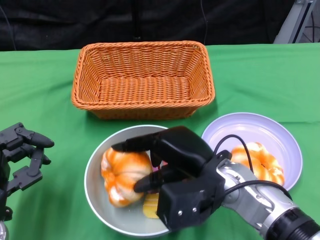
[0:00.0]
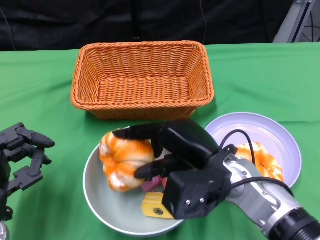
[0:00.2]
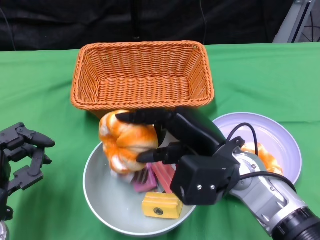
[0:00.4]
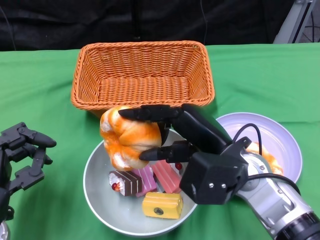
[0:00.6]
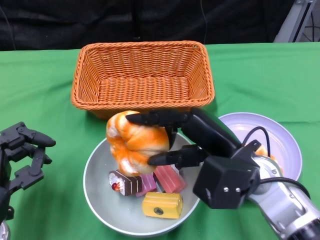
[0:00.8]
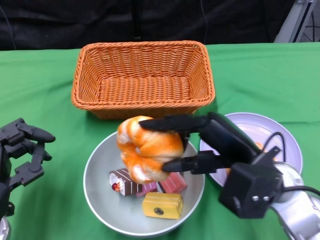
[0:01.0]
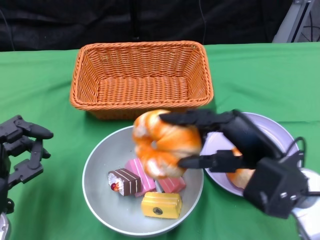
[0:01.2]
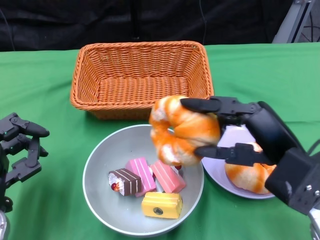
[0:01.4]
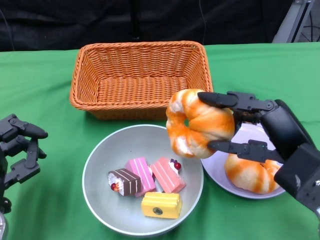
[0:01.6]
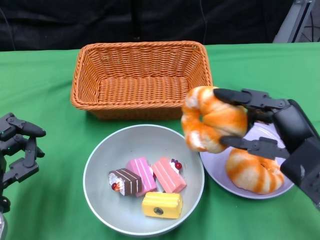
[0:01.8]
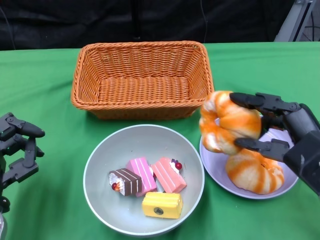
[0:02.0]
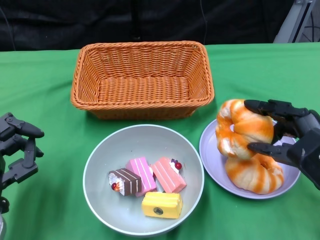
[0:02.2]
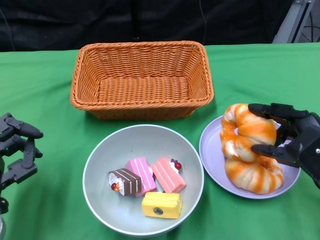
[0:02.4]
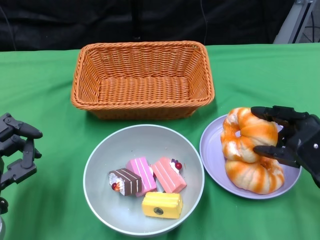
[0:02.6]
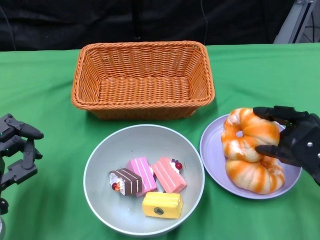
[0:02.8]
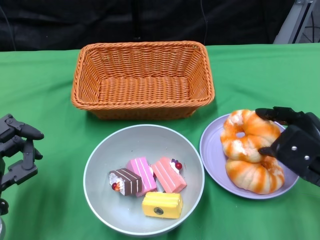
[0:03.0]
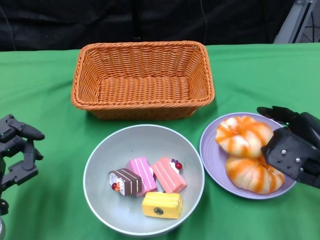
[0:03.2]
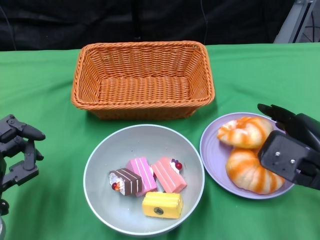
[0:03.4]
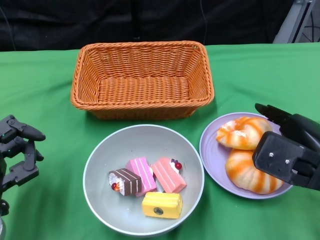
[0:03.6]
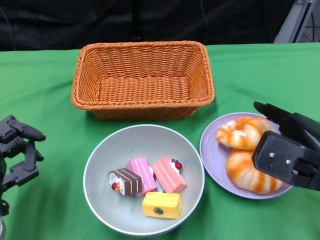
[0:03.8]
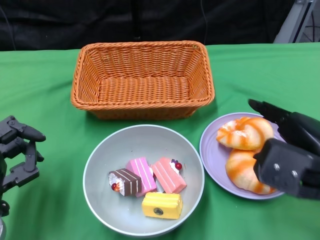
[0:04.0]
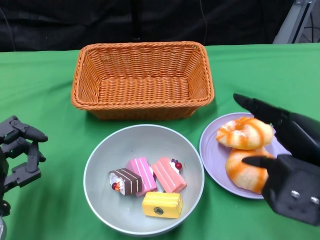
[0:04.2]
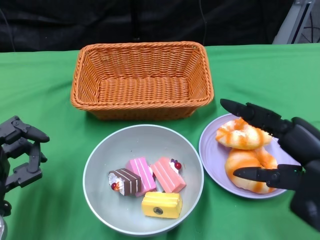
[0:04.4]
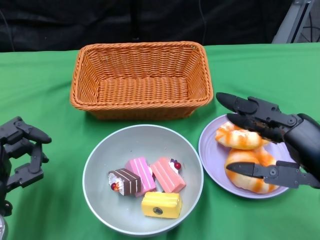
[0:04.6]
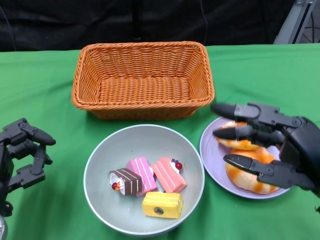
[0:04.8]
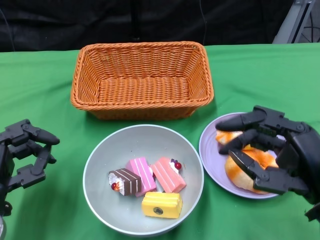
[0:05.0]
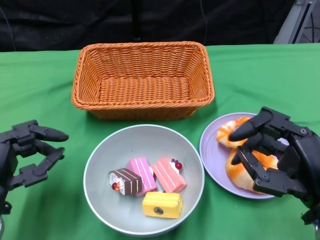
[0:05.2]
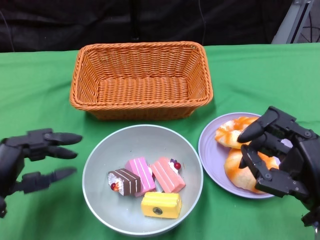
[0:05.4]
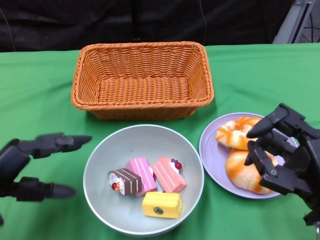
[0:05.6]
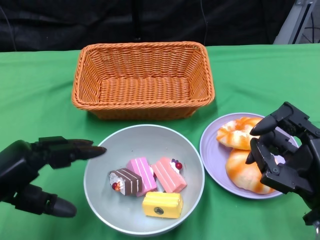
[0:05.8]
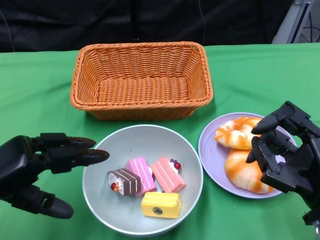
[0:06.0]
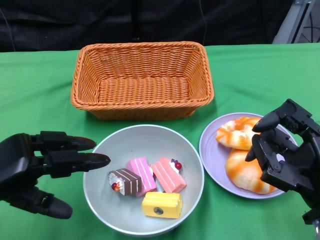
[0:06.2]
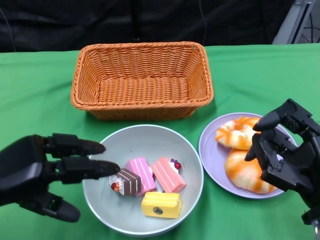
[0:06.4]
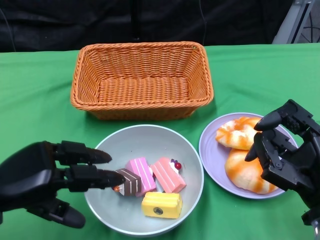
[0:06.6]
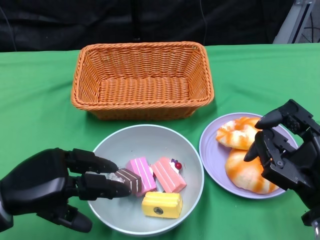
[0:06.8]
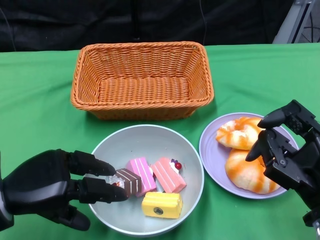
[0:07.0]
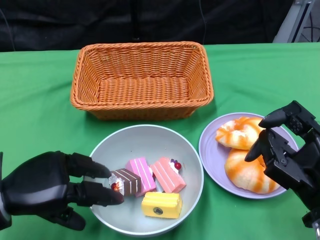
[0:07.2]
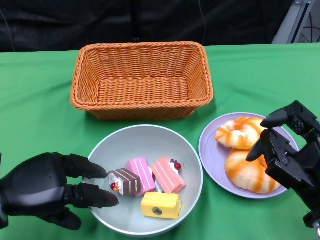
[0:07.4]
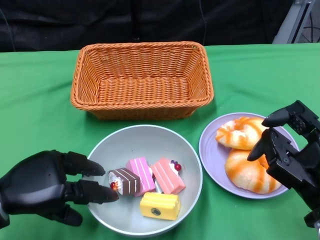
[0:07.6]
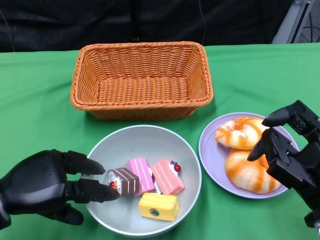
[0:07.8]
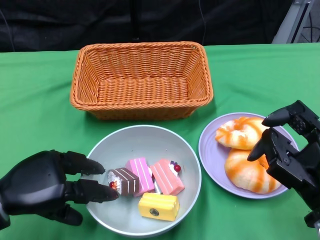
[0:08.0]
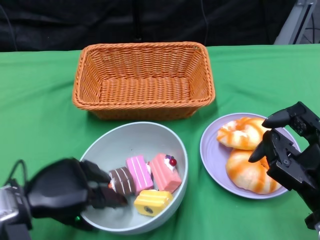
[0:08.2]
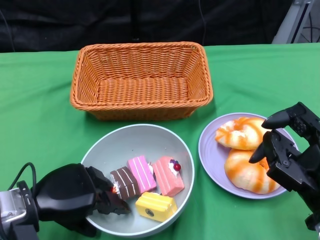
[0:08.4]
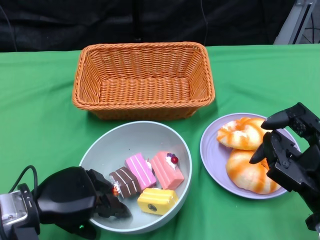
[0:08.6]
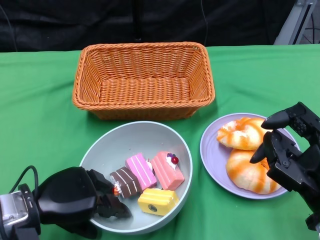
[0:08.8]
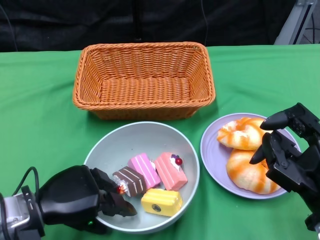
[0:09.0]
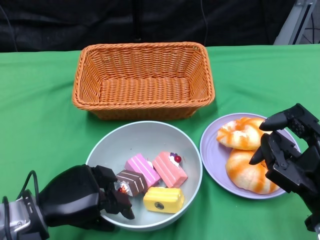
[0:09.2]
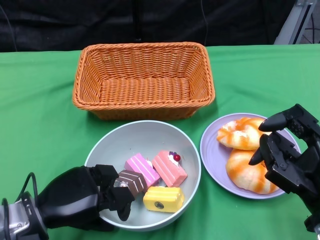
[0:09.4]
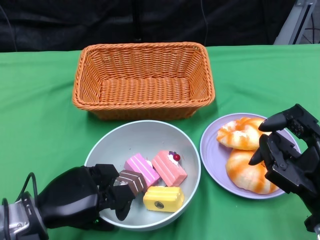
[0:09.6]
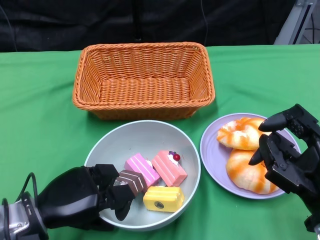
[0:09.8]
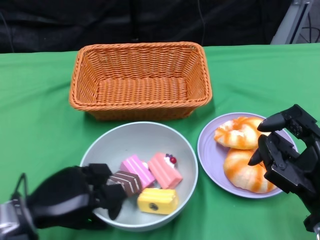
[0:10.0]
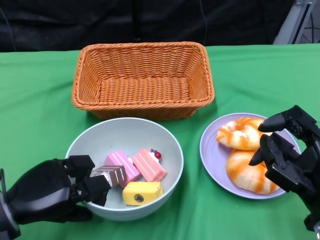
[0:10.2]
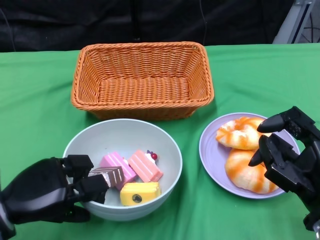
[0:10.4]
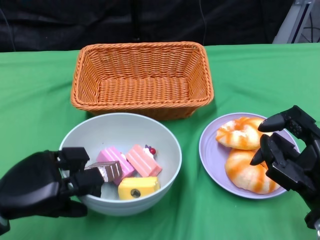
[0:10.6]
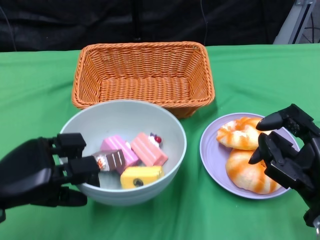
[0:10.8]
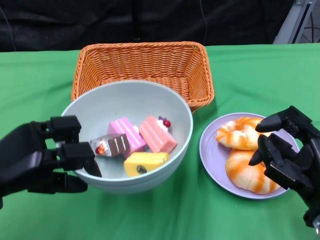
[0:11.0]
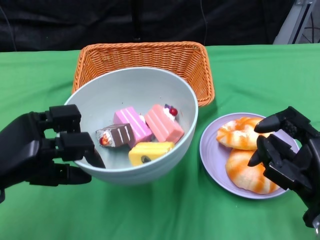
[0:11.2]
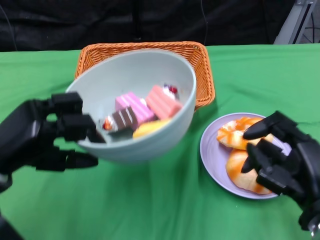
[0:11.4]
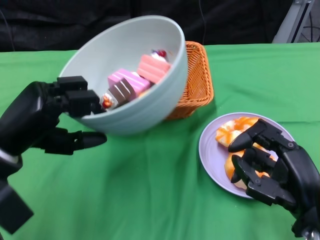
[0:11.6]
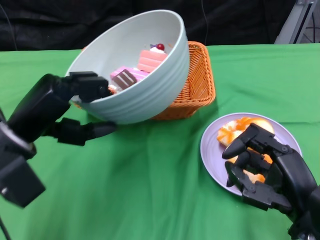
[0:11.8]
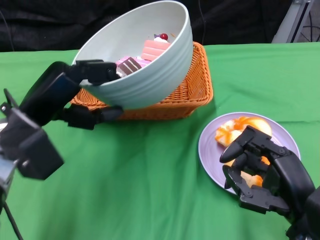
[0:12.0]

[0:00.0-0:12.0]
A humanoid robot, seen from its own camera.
Step, 0:00.0 to 0:04.0: Pick up the bread with the right gripper and place it on the plate.
Step, 0:04.2 to 0:09.6: Grasp the bowl with the left gripper.
0:00.0 to 0:01.6: The right hand is displaced to the right by some 10 cm.
0:01.6 to 0:03.0: The right hand shifts by approximately 10 cm.
0:03.0 to 0:04.4: The right hand travels upward and backward by roughly 15 cm.
0:04.4 to 0:06.0: The right hand goes approximately 10 cm downward. The left hand heads upward, covering about 5 cm.
0:10.4 to 0:12.0: The left hand shifts some 10 cm upward and forward.

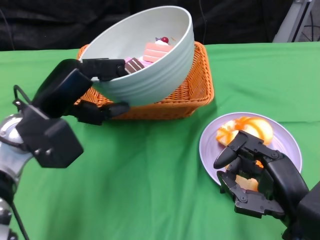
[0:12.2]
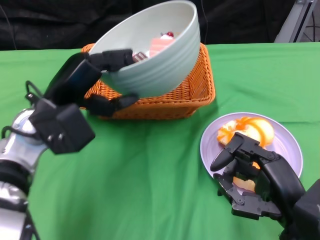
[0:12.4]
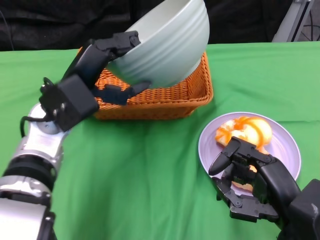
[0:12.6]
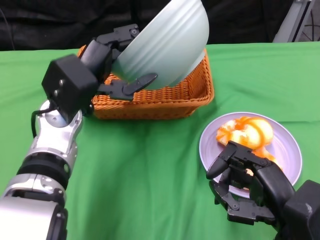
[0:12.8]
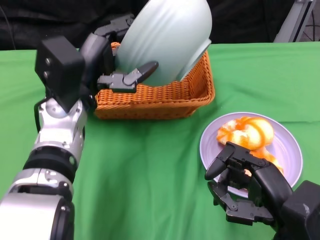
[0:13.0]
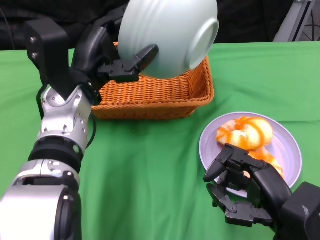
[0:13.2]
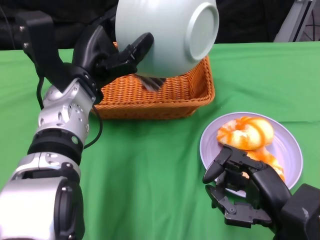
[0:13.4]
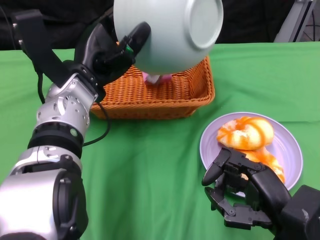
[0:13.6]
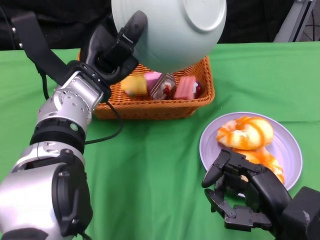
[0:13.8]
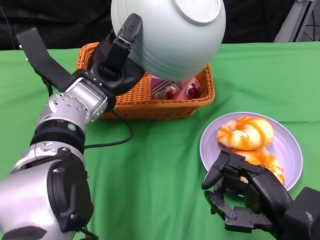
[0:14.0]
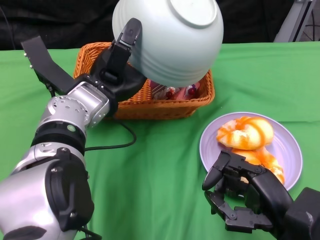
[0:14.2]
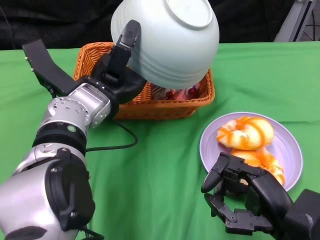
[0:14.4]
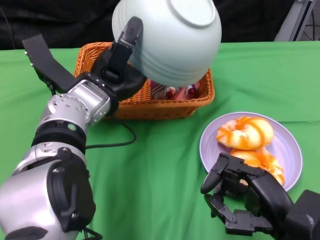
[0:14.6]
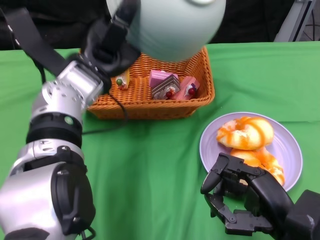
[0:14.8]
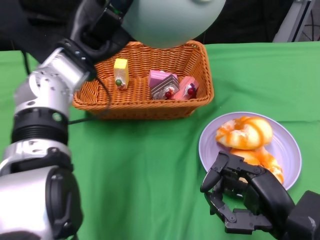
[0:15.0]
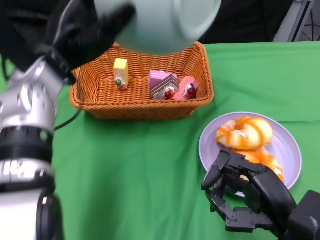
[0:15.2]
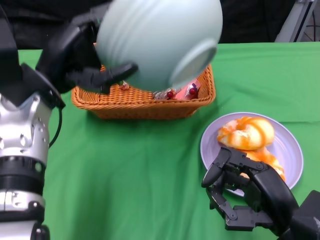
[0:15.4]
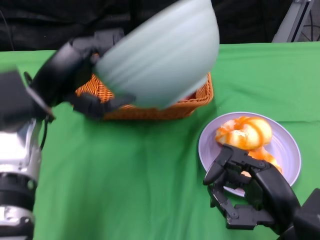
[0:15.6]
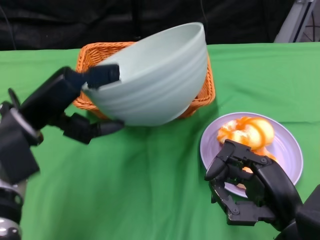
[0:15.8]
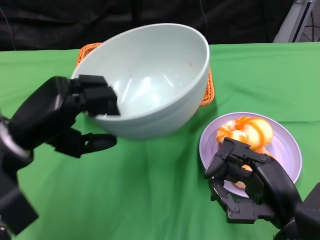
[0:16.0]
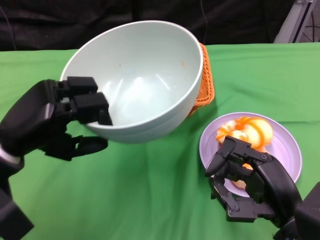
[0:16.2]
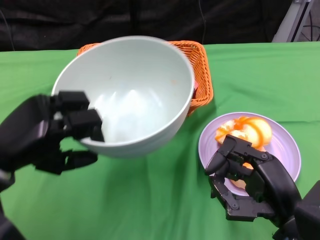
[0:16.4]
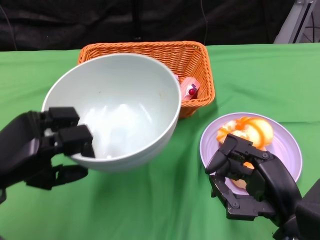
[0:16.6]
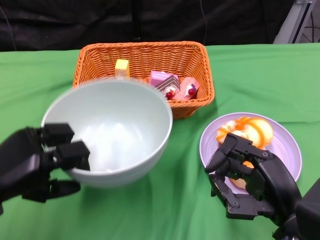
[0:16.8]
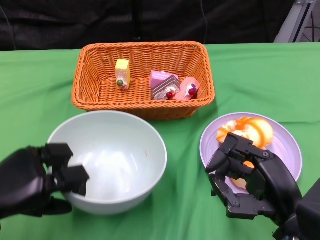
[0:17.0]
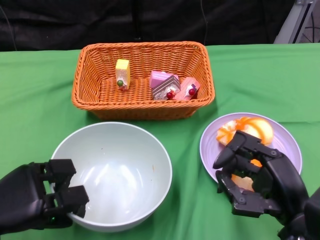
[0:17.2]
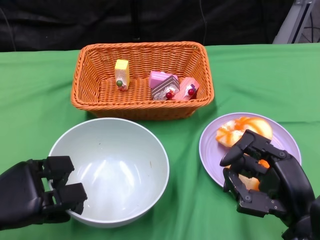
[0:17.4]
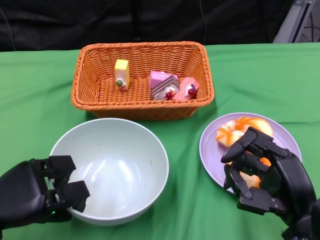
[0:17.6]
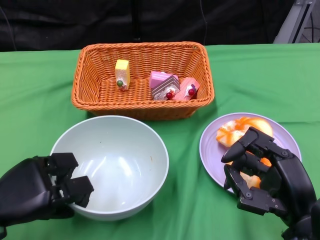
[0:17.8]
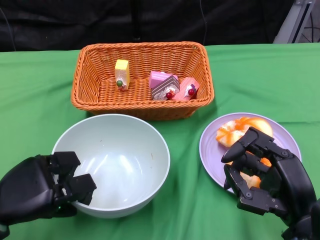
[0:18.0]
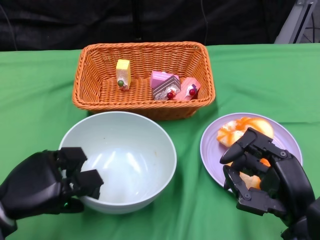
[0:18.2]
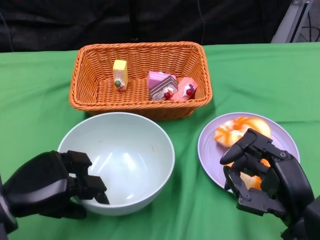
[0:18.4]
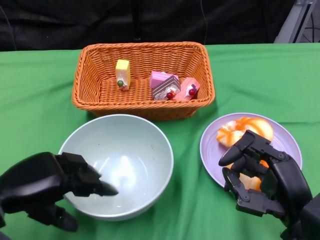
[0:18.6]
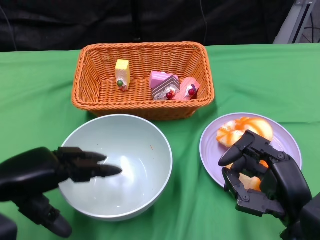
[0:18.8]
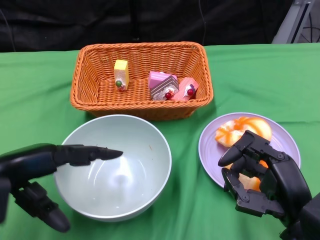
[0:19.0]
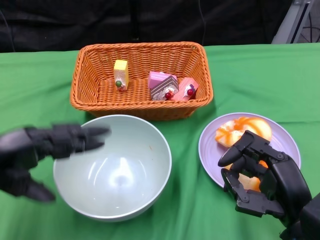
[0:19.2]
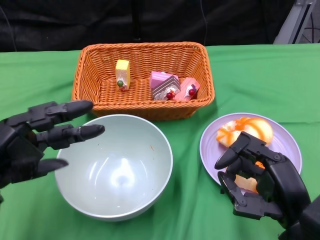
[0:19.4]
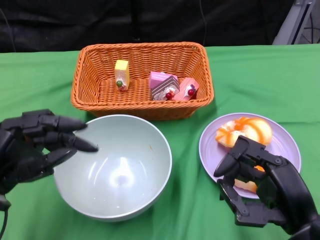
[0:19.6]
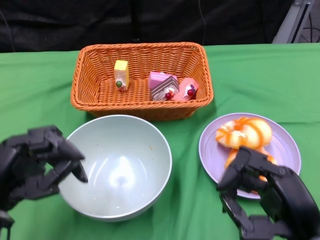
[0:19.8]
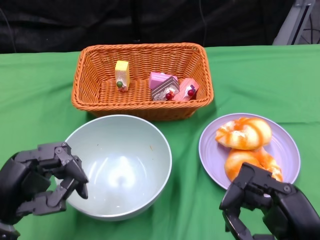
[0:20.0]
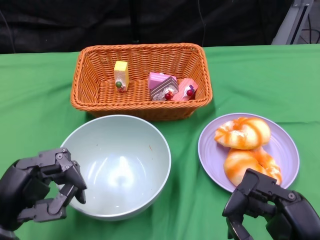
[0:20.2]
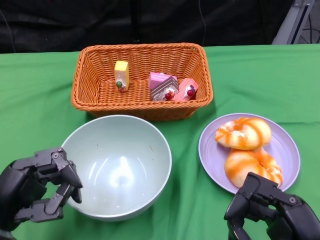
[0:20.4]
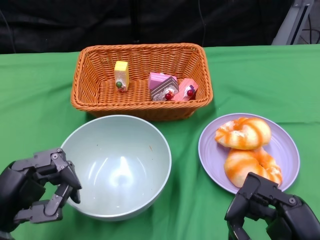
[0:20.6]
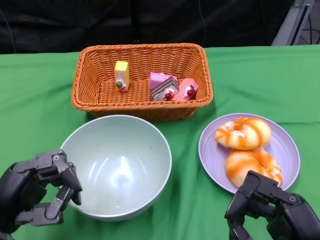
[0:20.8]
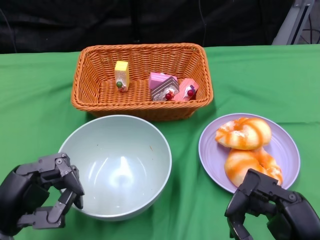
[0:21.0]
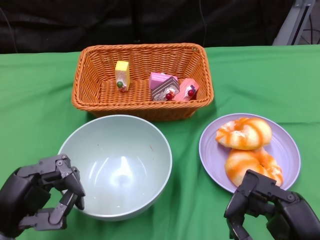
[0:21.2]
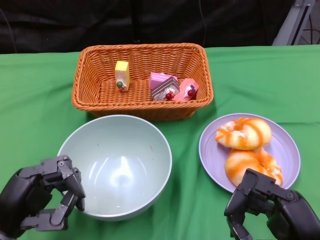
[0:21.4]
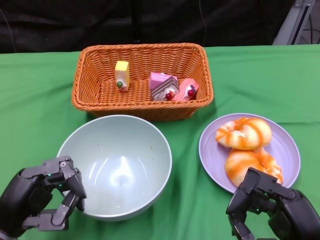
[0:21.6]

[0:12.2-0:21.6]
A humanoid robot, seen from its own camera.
Step, 0:12.2 to 0:15.0: Pour the cake into the basket with the left gripper.
Step, 0:15.2 to 0:19.0: Place the bowl on the table with the left gripper.
0:12.2 to 0:13.8: The left hand travels to the right by some 5 cm.
0:13.8 to 0:15.4: The left hand is displaced to the left by approximately 5 cm.
0:15.4 to 0:17.0: The left hand shifts roughly 20 cm downward, backward and to the left.
0:20.0 to 0:21.6: The hands make only small movements.

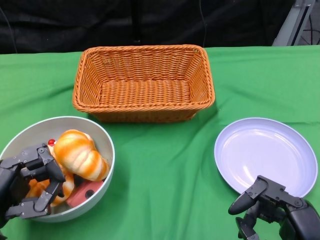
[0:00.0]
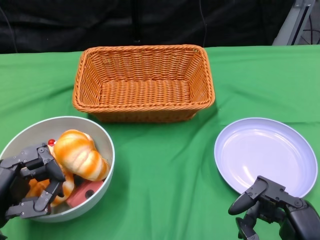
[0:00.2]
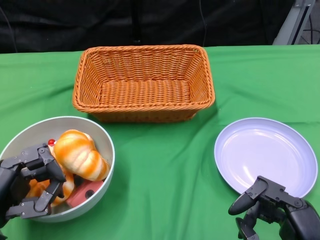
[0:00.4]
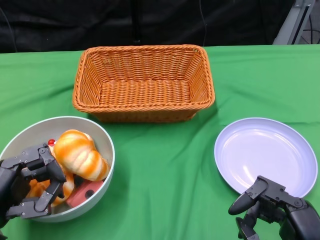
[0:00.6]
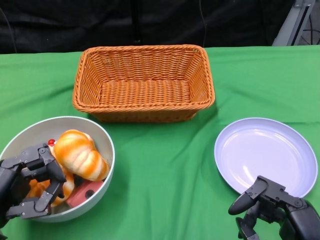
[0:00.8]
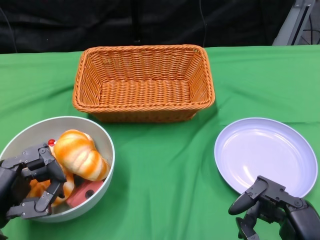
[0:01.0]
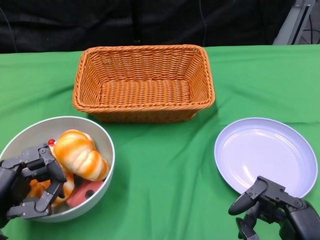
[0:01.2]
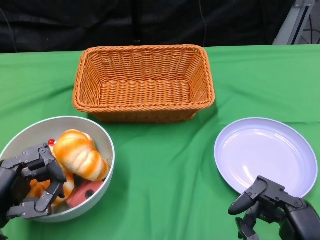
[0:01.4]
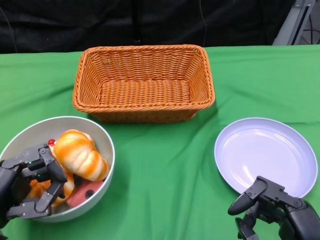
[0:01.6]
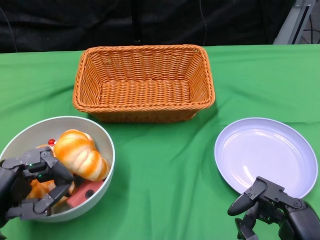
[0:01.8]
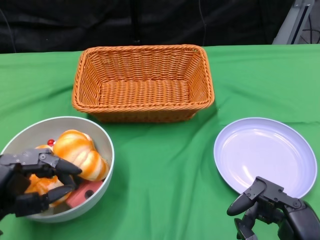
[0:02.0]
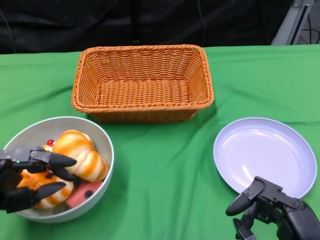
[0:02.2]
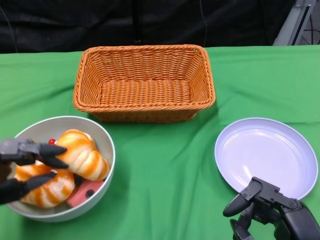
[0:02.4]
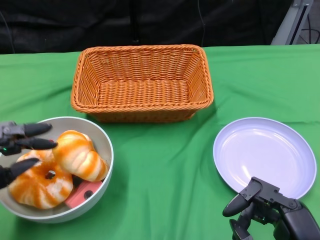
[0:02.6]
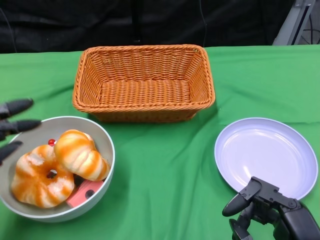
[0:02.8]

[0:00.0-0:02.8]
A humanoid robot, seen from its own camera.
0:01.4 to 0:02.8: The left hand moves upward, approximately 5 cm.
